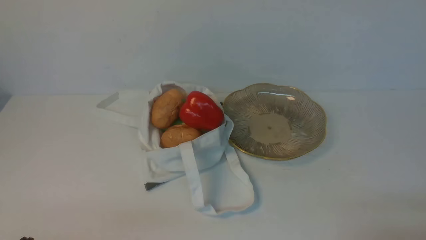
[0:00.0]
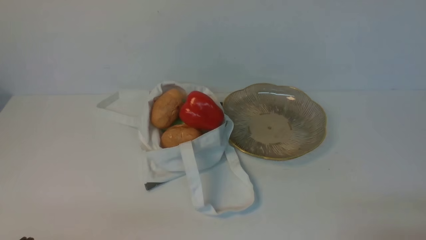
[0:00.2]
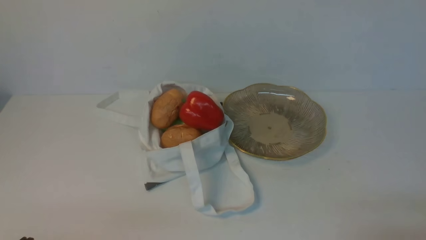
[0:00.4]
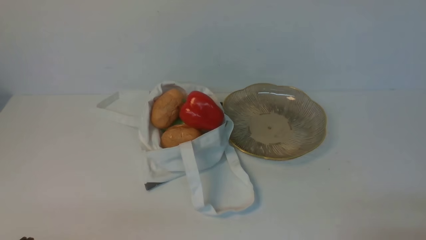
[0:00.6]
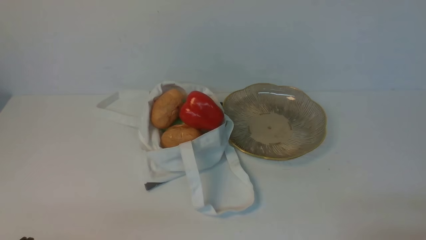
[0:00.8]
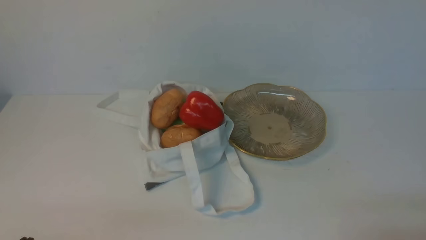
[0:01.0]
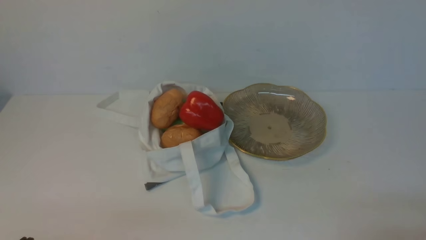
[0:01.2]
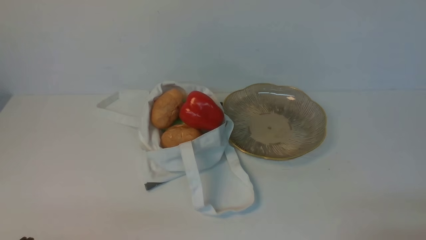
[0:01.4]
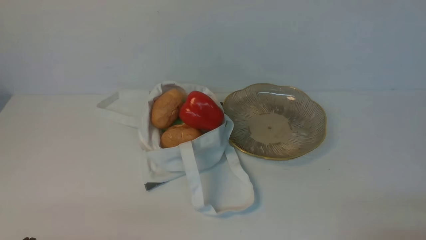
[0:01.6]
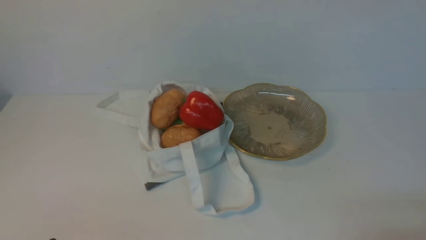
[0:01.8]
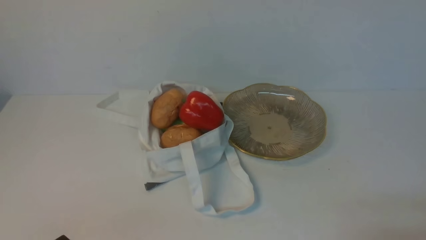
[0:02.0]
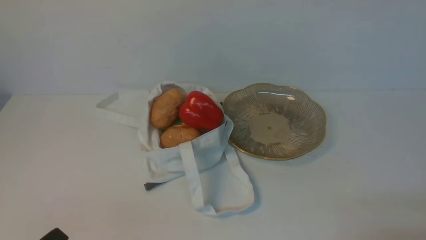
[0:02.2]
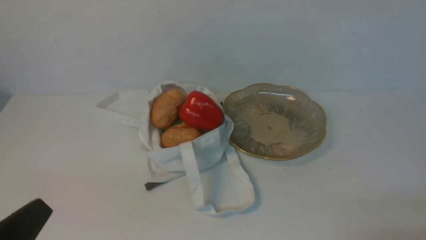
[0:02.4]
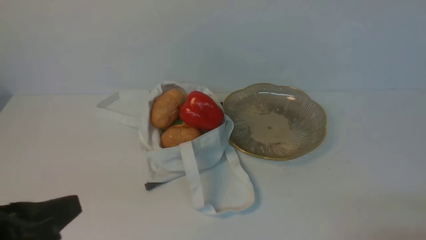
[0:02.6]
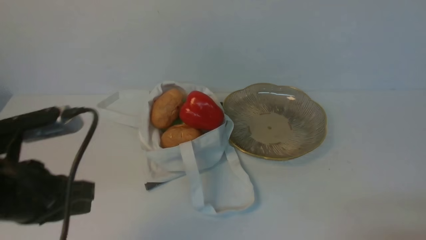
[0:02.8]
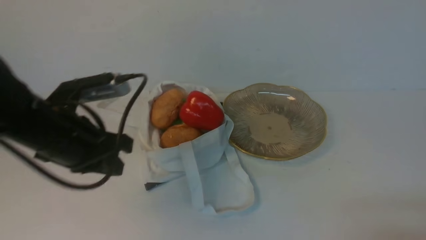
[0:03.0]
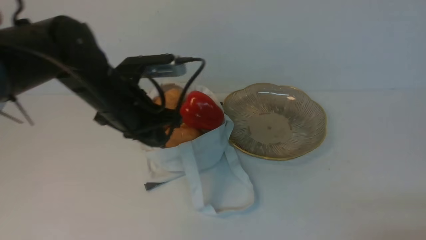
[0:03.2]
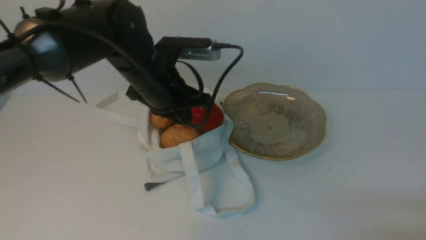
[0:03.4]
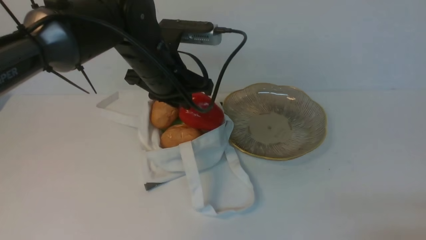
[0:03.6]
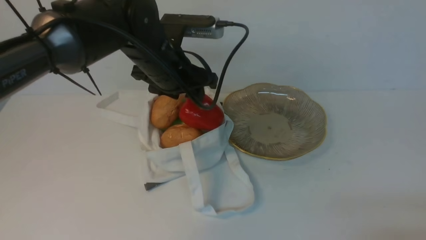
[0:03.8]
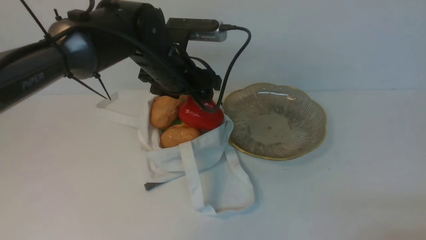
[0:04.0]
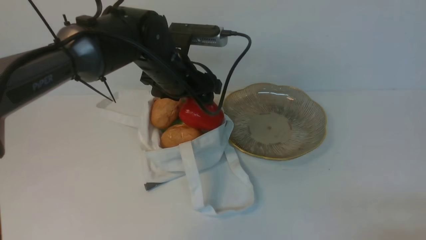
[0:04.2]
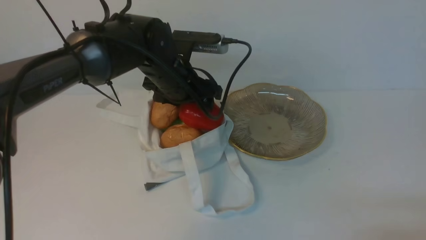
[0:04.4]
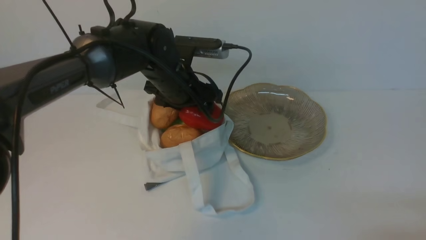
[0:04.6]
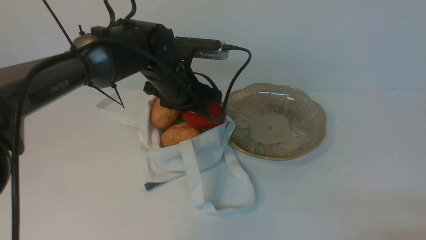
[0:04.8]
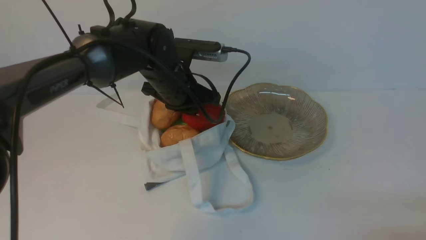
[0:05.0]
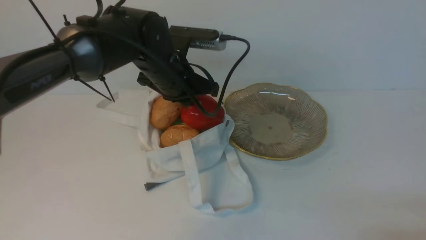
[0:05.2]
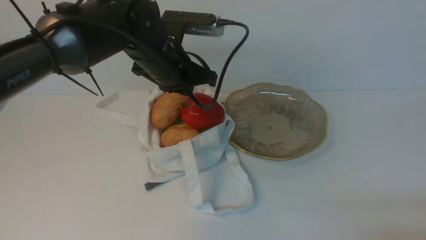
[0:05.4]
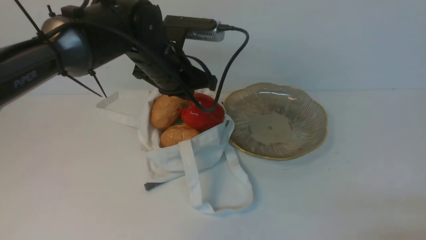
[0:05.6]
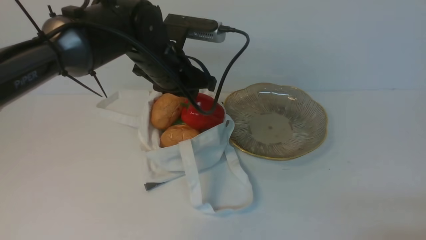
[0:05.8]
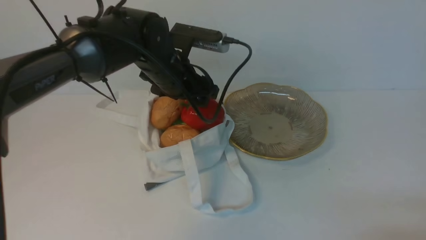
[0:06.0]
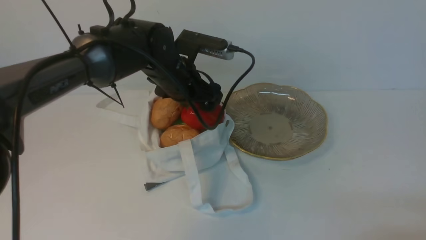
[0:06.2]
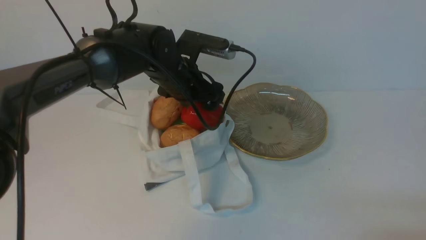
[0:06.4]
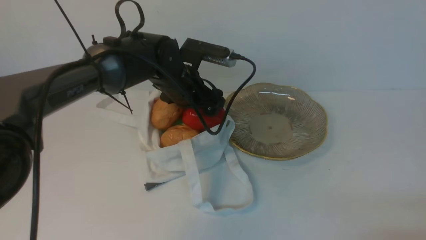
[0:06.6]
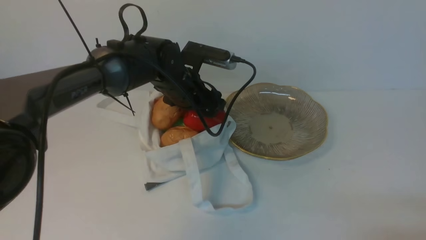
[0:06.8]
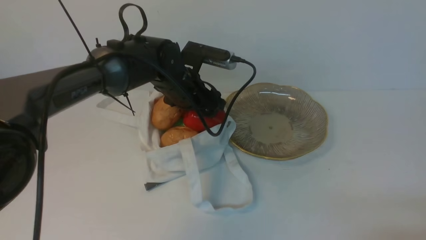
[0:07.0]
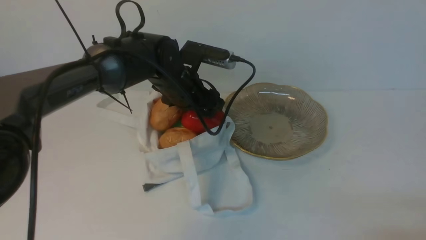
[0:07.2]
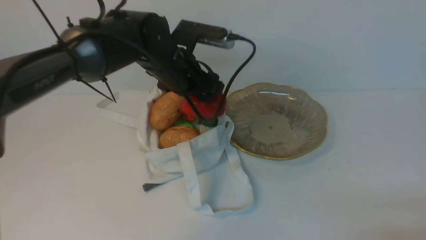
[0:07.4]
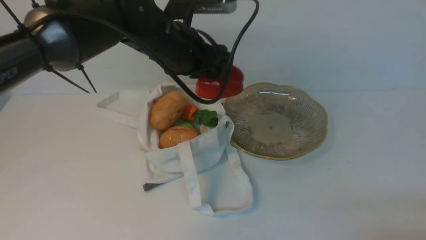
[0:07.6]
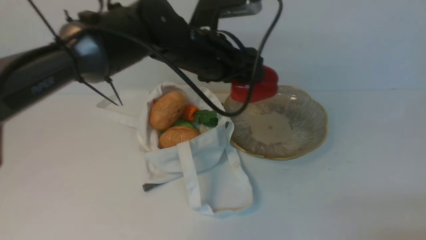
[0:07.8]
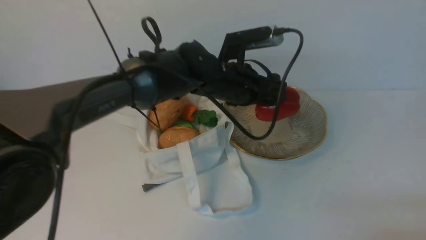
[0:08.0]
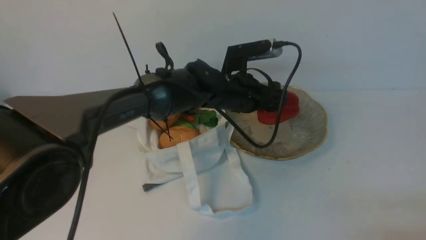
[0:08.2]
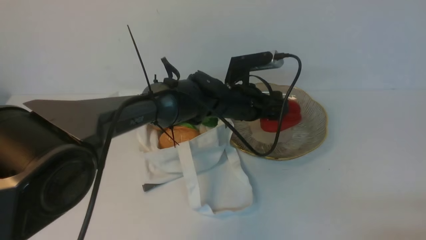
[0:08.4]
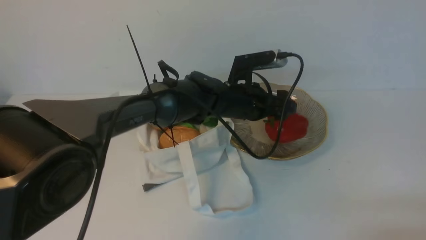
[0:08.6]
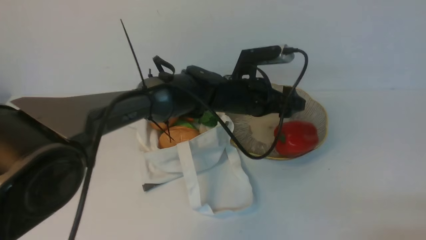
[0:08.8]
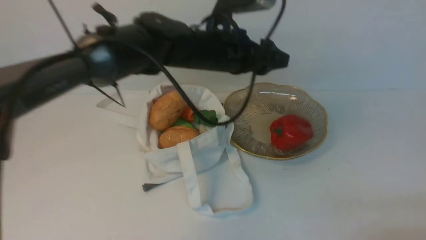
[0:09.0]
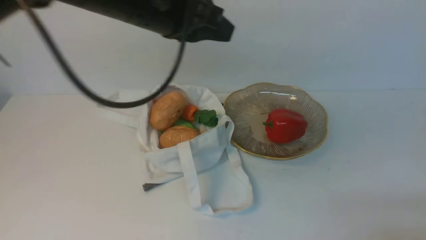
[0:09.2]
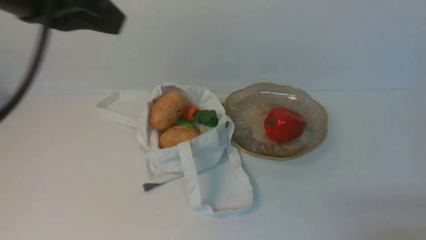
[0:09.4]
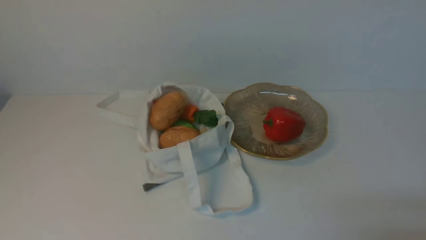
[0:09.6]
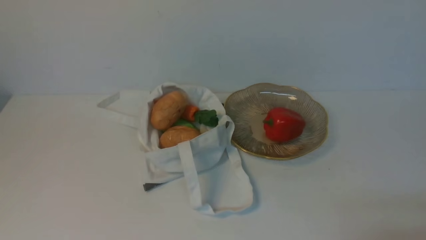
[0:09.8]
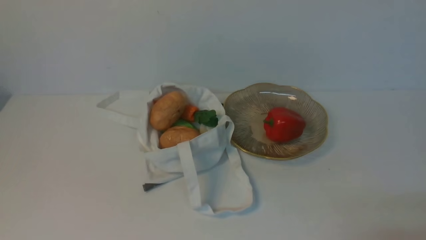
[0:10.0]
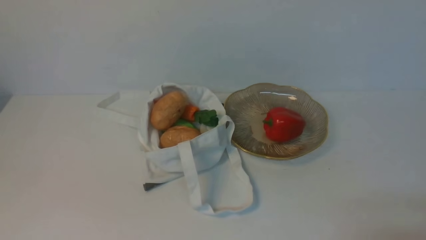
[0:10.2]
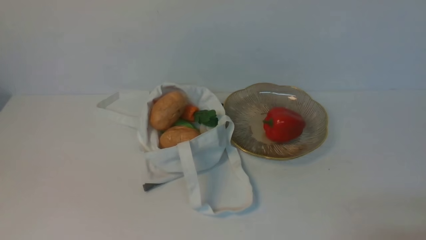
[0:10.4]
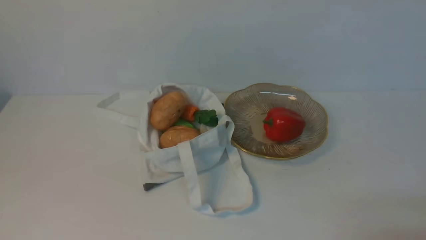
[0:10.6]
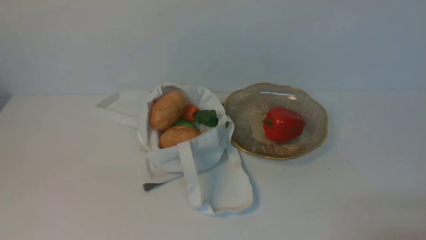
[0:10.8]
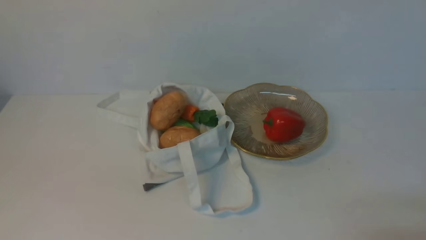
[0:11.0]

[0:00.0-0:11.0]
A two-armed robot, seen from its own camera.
Task of the whole recording: take vegetables from cloth bag on white table place on plate.
Step, 0:00.0 to 0:07.0: Grasp the bell pepper with left gripper.
Step, 0:07.2 to 0:08.6: Place the bell pepper on the plate with left gripper.
0:01.6 to 0:03.2: The left gripper moves forward, to the right and upward, roughly 30 cm.
0:03.2 to 0:04.8: The left gripper is displaced forward and to the right by about 10 cm, and opens.
0:04.8 to 0:06.2: The left gripper opens up.
0:06.2 to 0:07.8: The left gripper moves to the right, some 5 cm.
0:07.8 to 0:09.4: The left gripper heads upward, backward and to the left, covering approximately 30 cm, and closes up.
0:09.4 to 0:11.0: The left gripper shifts about 25 cm backward, downward and to the left.

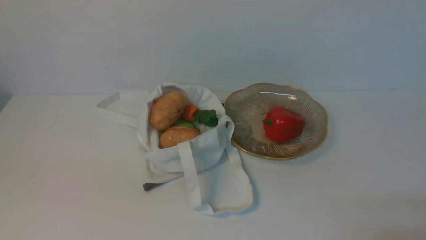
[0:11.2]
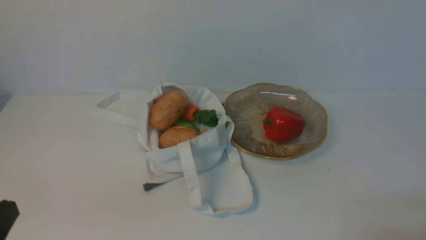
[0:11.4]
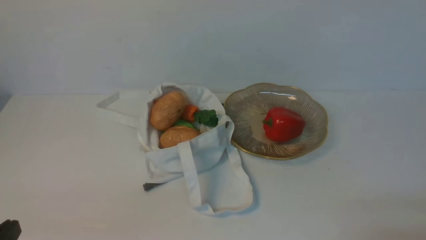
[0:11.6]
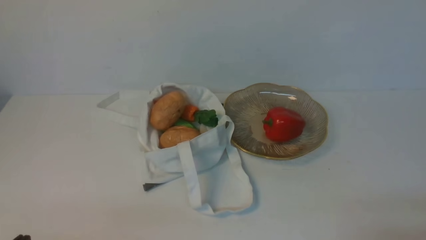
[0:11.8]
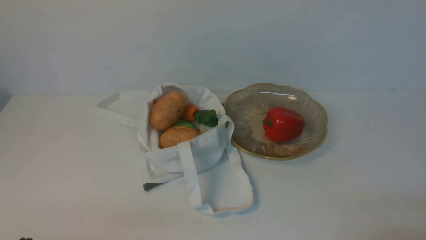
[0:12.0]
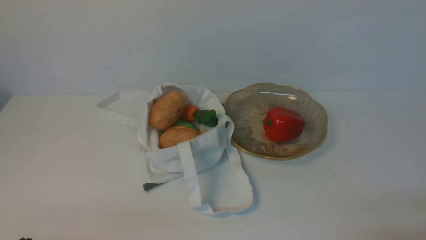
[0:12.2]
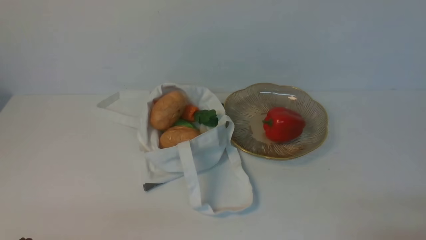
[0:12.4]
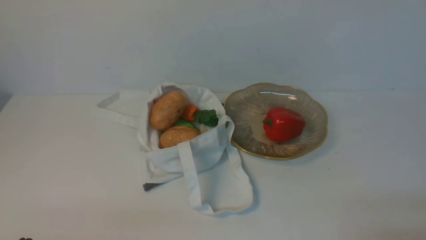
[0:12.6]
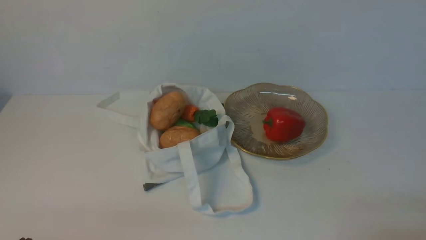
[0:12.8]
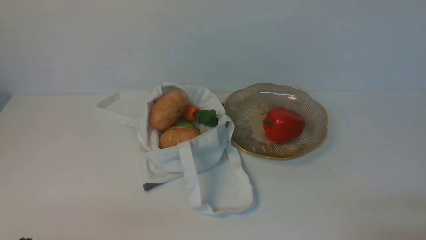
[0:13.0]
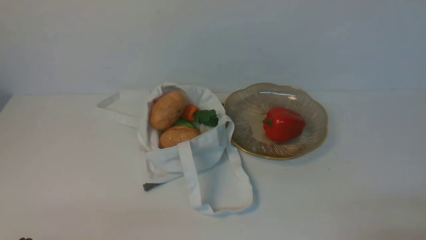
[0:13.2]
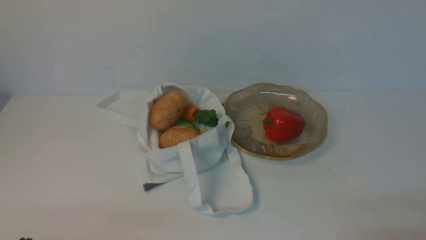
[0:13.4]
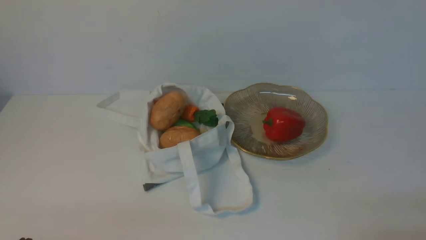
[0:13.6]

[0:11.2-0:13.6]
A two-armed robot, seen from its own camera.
Task of the whole recording: take vegetables from cloth bag on white table place on plate.
0:12.4 to 0:13.6: Neither gripper changes place.

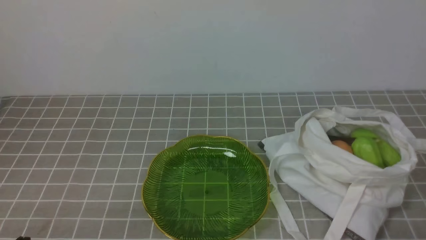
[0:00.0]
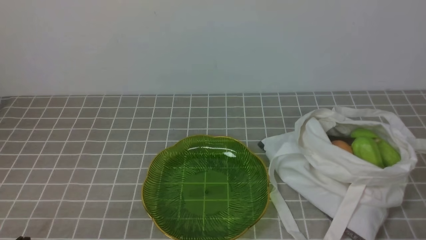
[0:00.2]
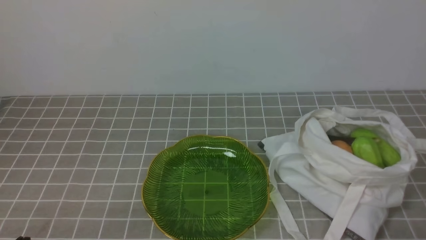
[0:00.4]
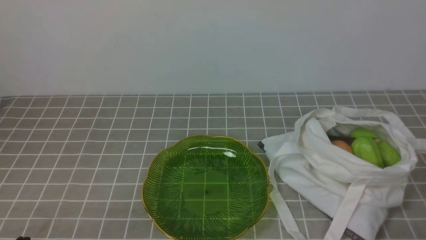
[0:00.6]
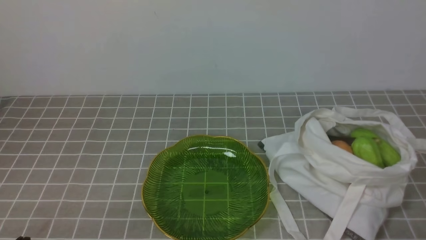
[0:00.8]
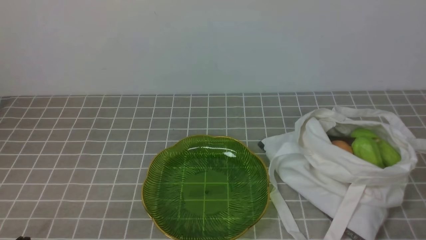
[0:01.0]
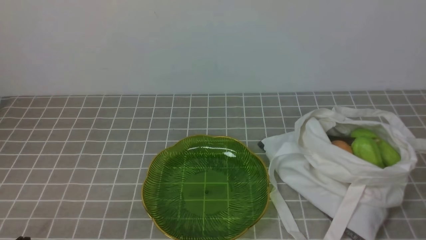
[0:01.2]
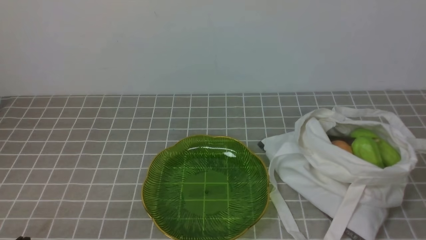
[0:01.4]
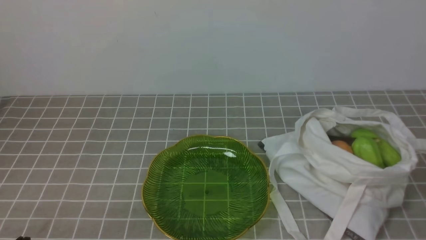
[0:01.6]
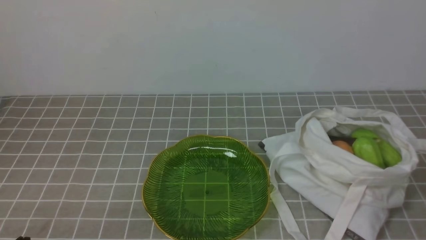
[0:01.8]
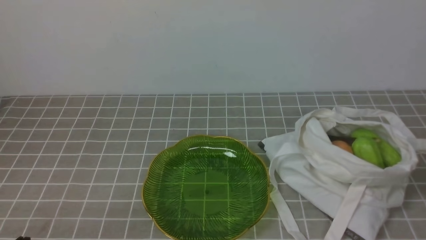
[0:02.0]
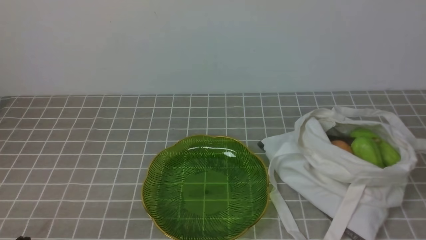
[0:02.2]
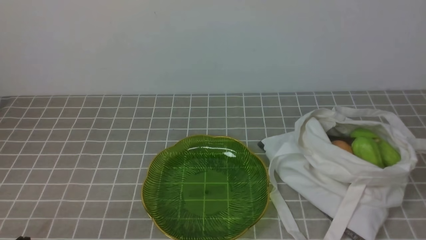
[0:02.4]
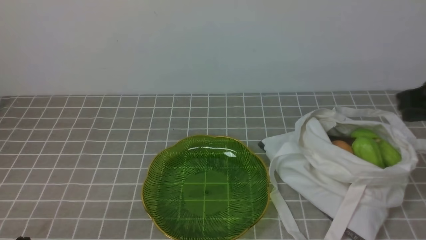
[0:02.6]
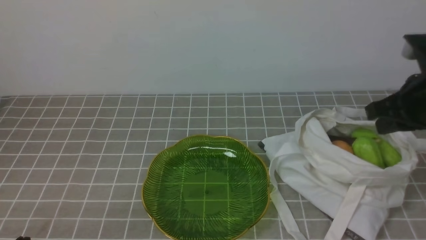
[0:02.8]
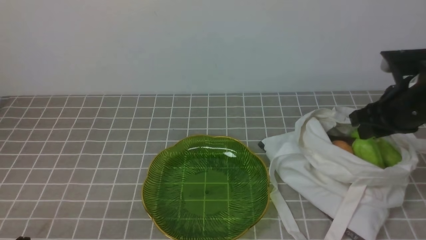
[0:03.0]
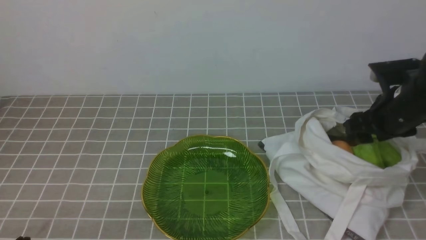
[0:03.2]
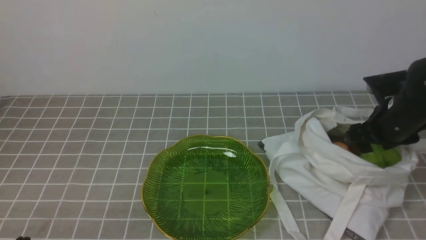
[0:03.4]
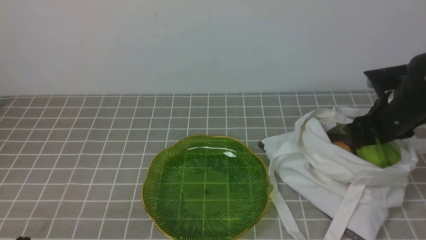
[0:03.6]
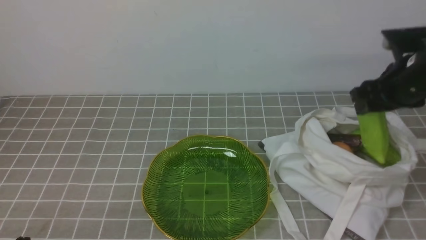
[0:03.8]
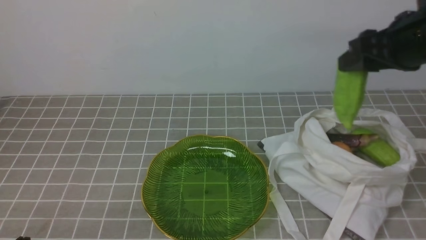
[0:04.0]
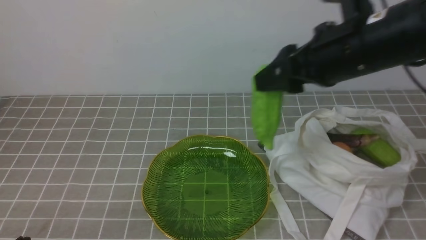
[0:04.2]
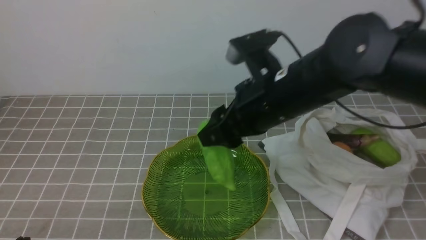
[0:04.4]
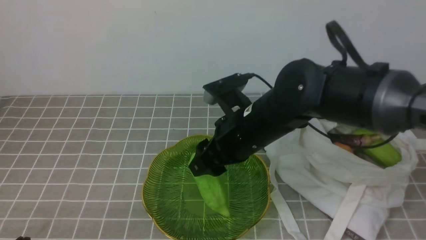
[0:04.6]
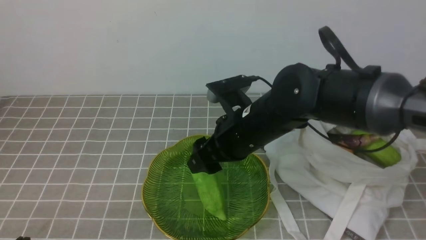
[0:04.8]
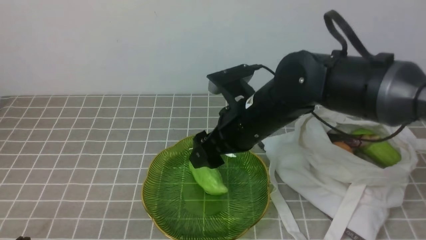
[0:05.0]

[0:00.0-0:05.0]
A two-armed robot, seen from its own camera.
Task of the whole recording: take vegetables from bag on grey coffee tablecloth place on plate.
Step, 0:00.0 to 0:03.4: Grasp the bitter melon with right gripper.
0:01.6 to 0:03.4: The right gripper moves forward, approximately 30 cm, and opens up.
0:03.4 to 0:05.0: The right gripper goes some 20 cm to the left.
